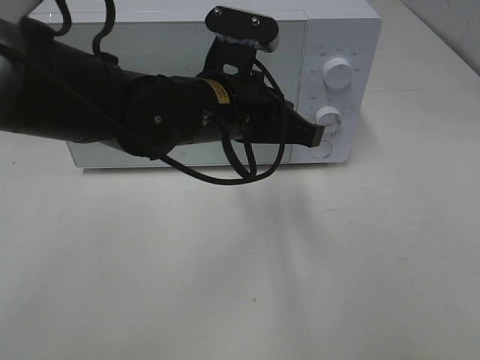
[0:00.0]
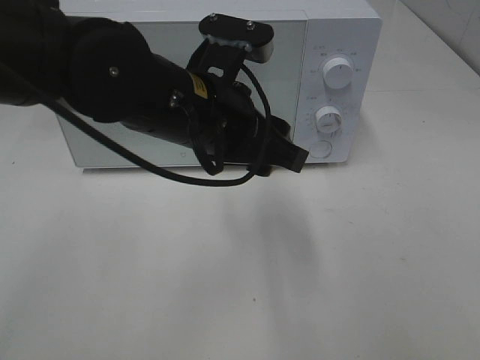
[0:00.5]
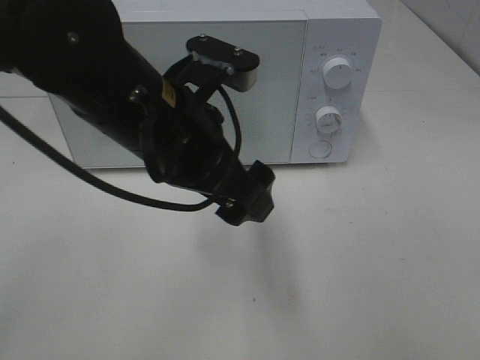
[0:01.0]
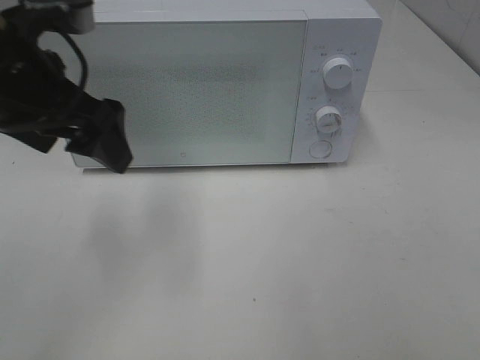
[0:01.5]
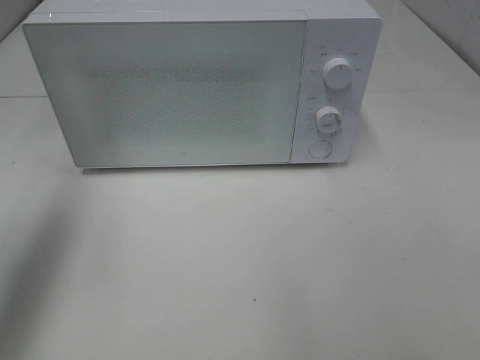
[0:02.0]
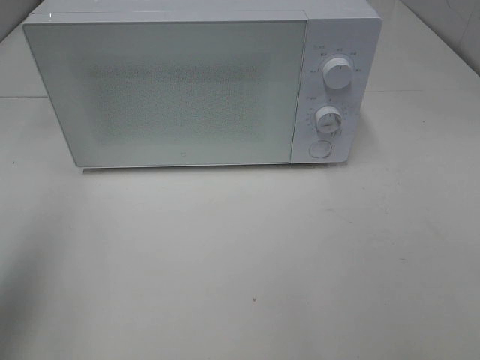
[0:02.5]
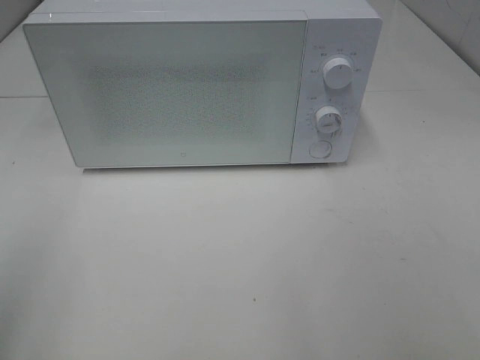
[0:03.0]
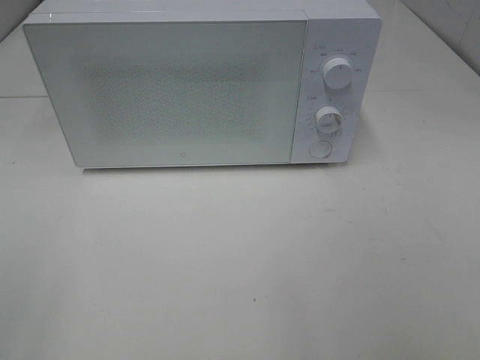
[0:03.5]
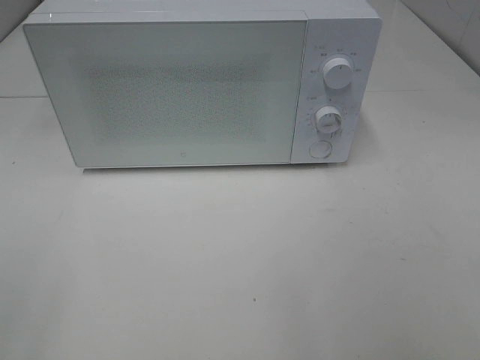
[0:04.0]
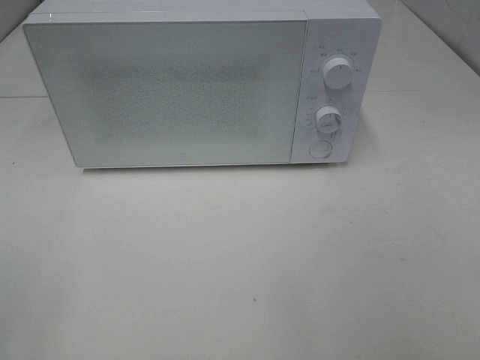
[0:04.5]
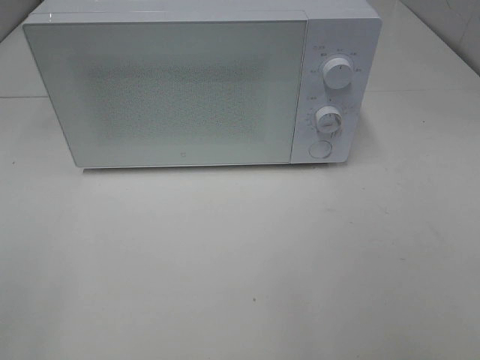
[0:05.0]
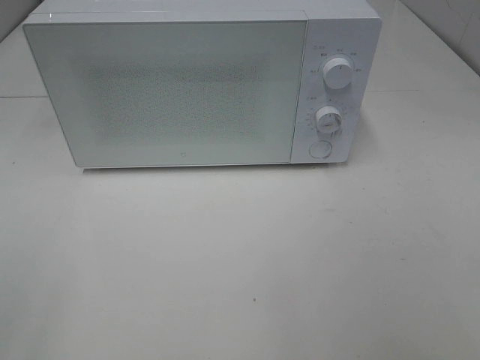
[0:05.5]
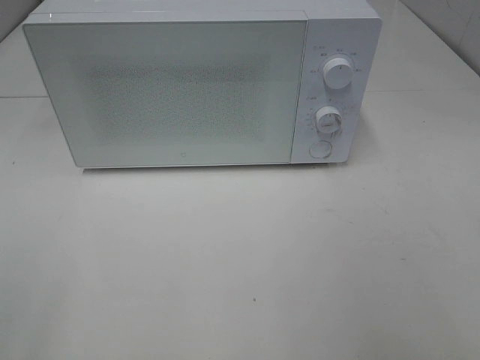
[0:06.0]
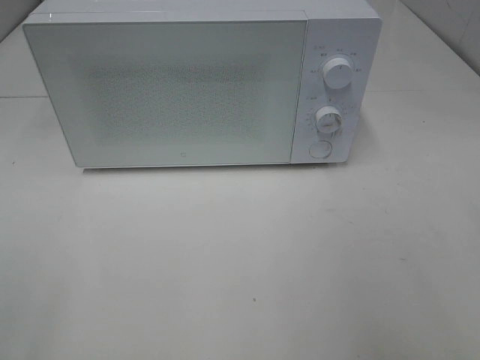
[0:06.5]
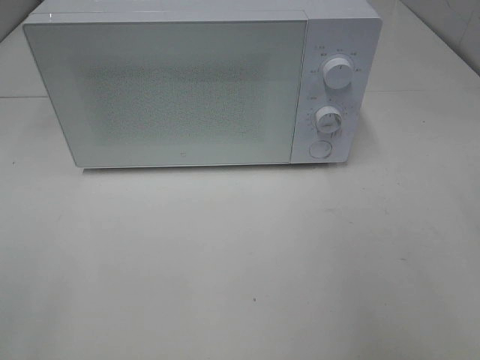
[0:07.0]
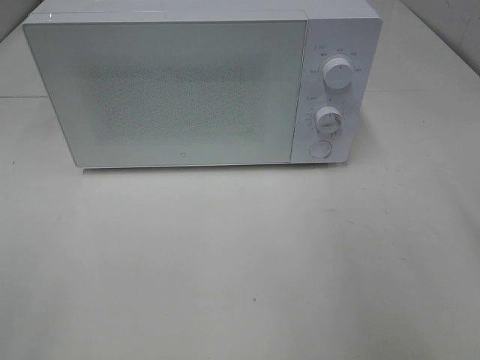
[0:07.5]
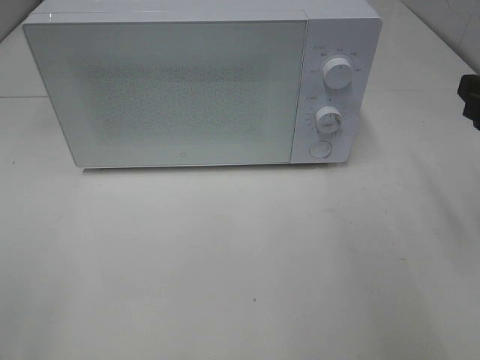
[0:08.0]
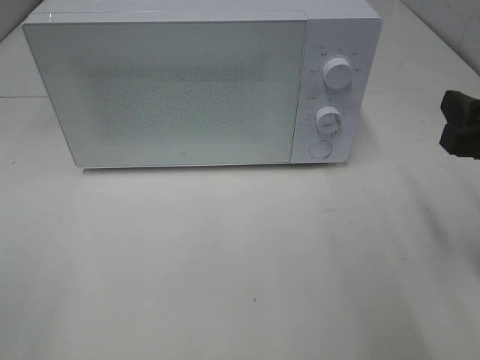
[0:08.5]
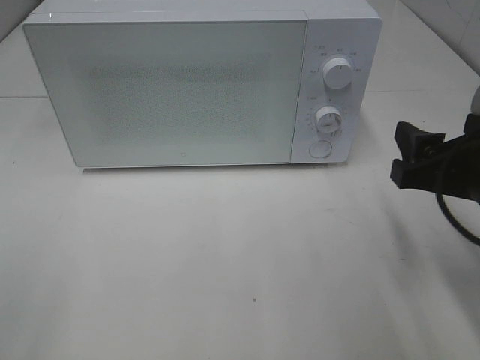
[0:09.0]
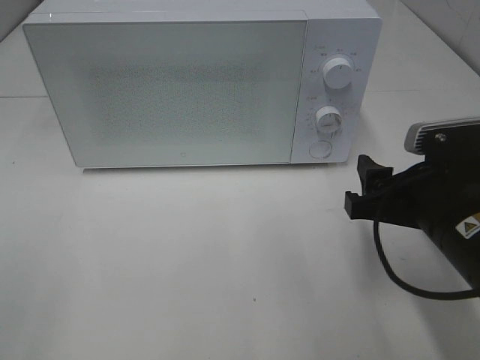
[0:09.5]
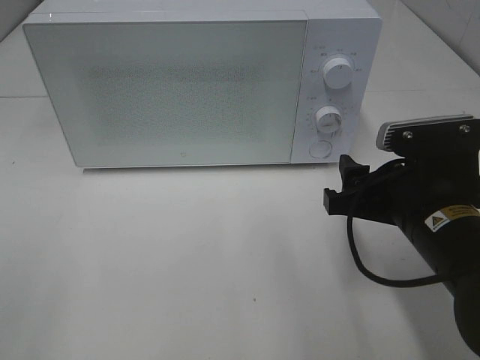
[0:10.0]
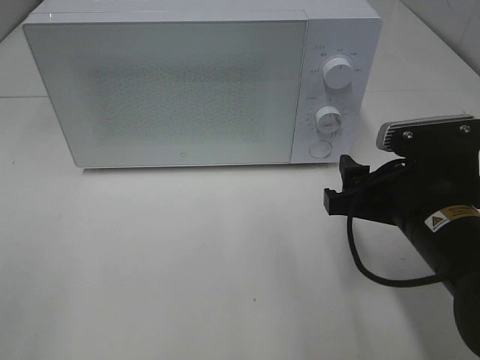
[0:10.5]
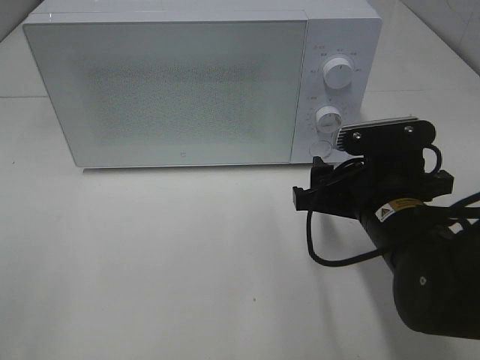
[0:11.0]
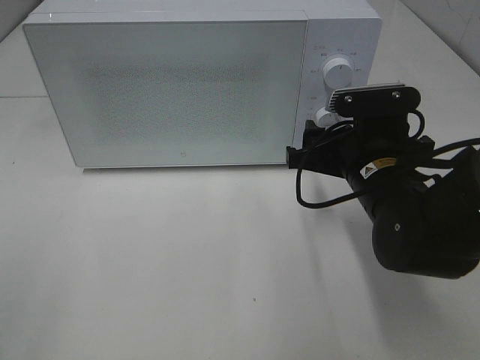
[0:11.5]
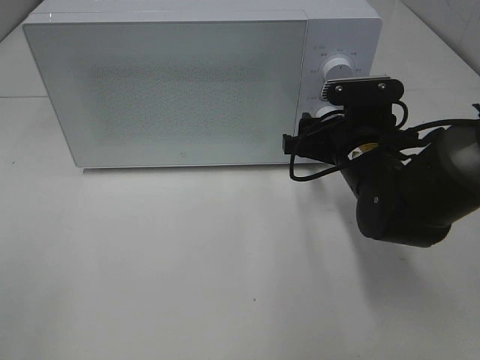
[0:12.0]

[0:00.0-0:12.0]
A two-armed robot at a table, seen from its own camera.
Task of the whole recording: Heat Sandwich.
0:00.0 to 0:02.0: The left gripper travels to the left and upward by approximately 30 cm, and opens up.
0:02.0 to 0:04.0: The left gripper is displaced backward by approximately 25 cm.
0:08.0 to 0:10.0: The right gripper shifts some 15 cm to the left and downward.
0:10.0 to 0:12.0: The right gripper goes approximately 10 cm forward.

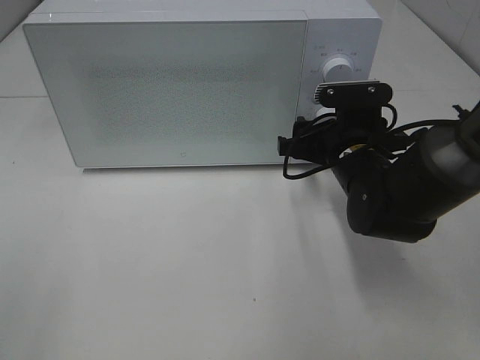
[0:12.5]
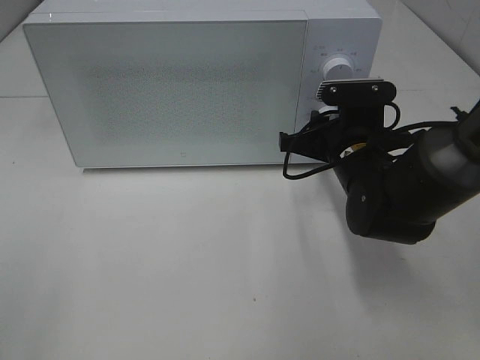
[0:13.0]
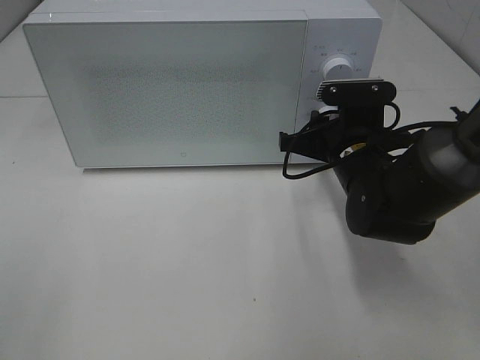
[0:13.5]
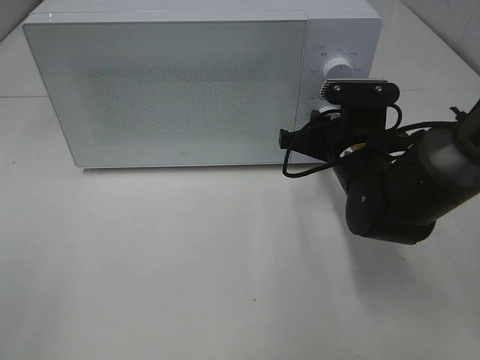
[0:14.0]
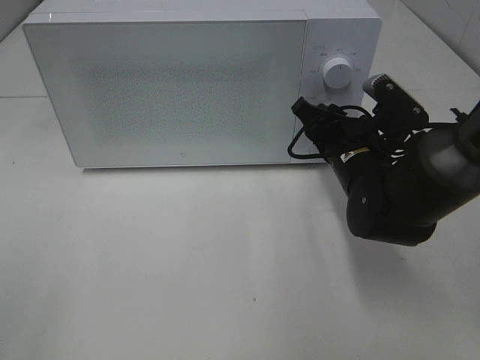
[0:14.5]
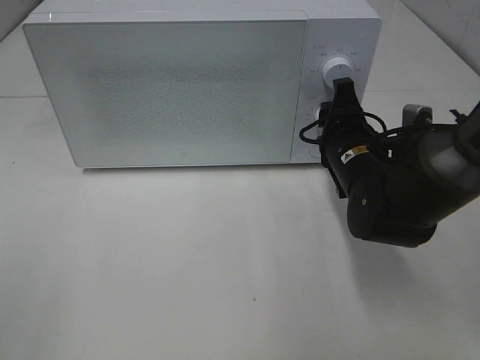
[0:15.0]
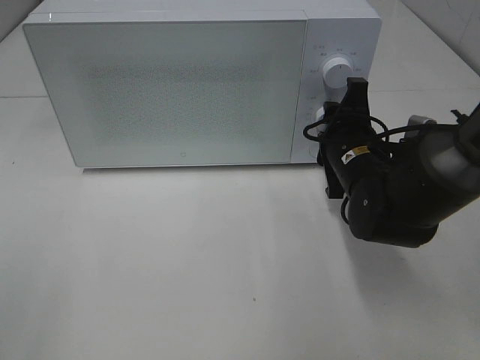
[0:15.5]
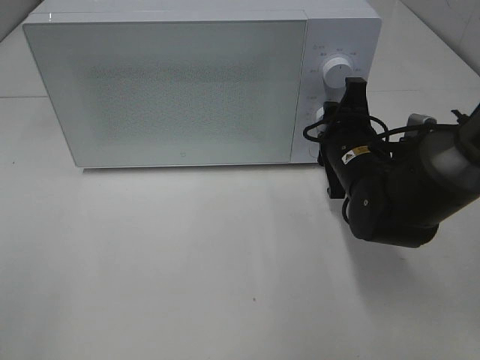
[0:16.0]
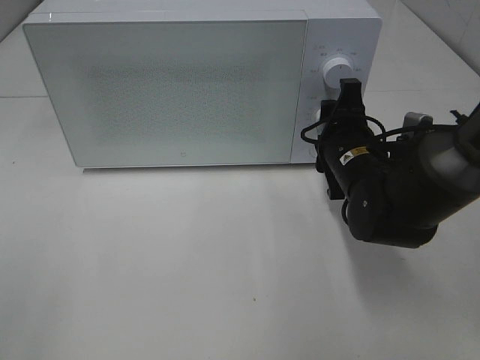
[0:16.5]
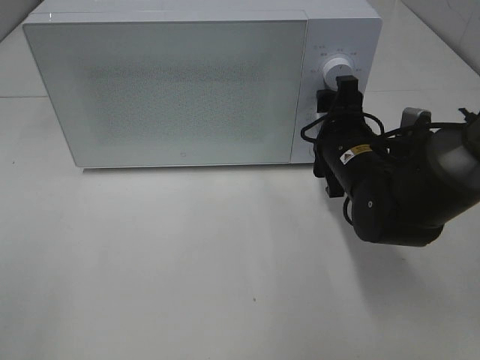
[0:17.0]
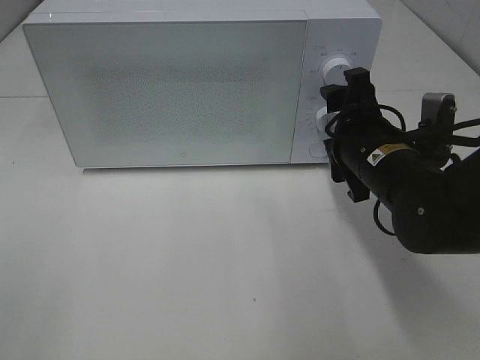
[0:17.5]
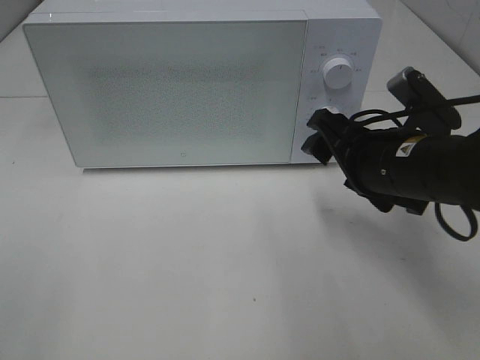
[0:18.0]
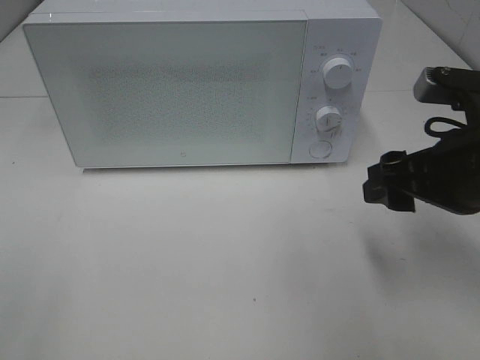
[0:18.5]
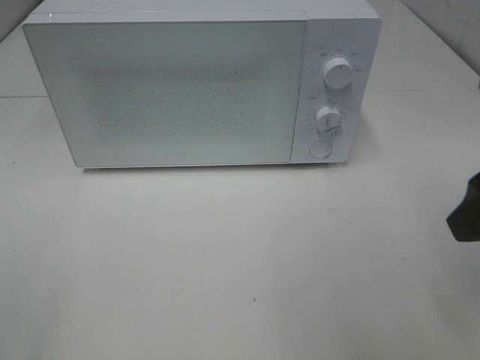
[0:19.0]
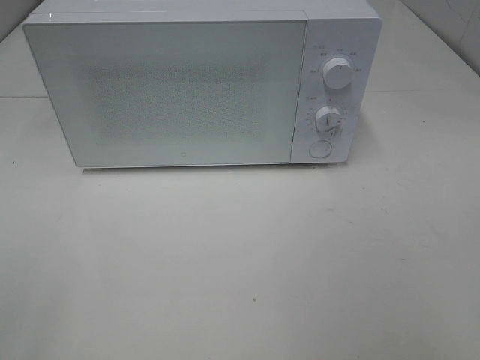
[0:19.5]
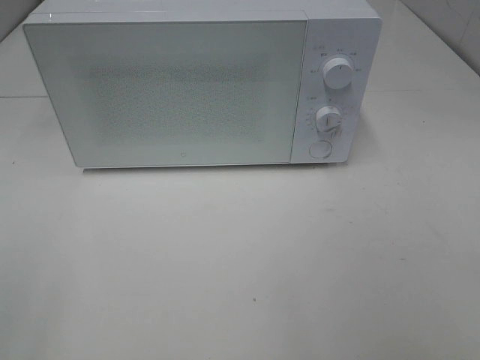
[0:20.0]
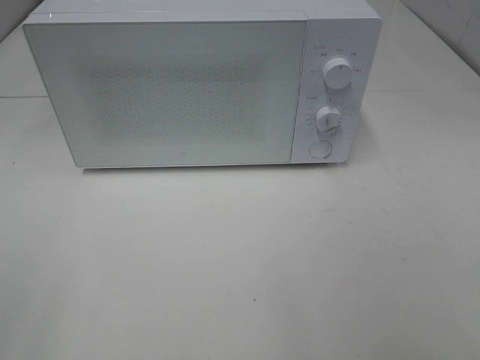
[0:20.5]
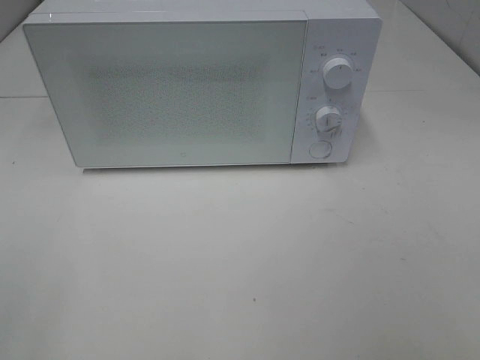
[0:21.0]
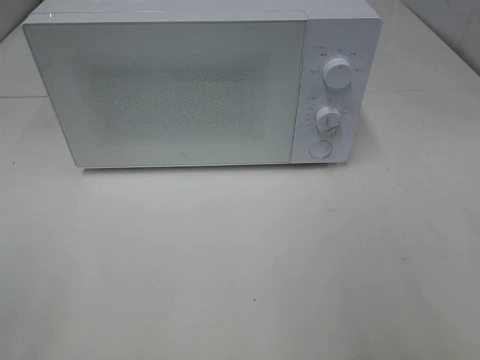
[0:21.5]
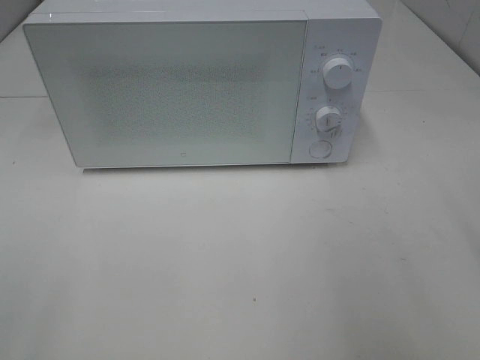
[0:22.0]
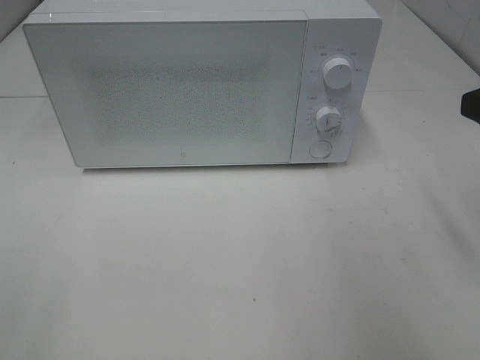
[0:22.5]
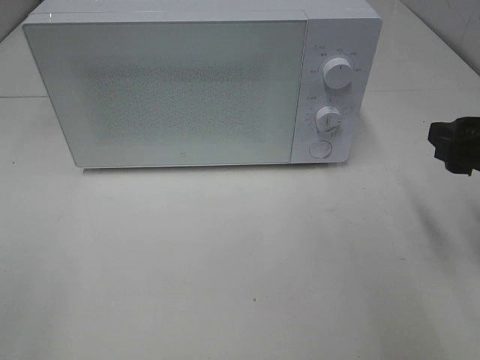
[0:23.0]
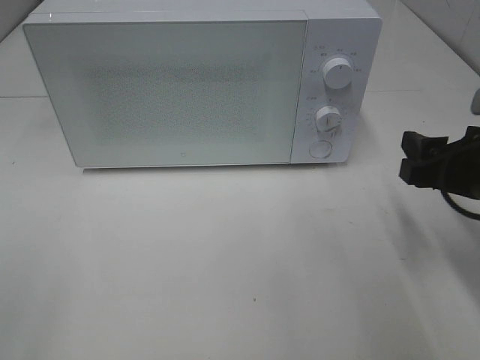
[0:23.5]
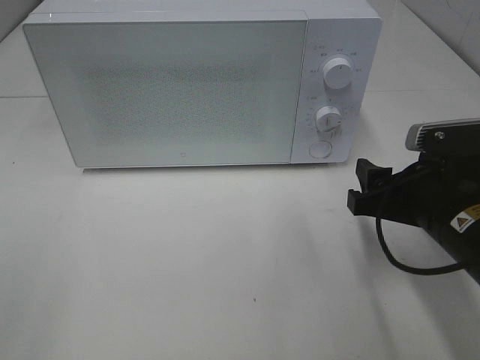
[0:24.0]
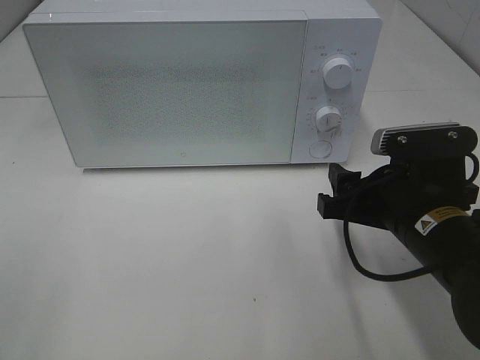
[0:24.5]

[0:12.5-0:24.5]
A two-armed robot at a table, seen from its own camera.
Task of the whole recording: Heat Sandwich.
Step, 0:12.5 to 0:17.0: Right hand: twist timer button.
0:12.5 to 0:14.5: The right gripper closes.
0:16.5 to 0:18.5: The right gripper goes roughly 15 cm backward, upward and to the right.
0:18.5 to 0:20.5: The right gripper moves backward, approximately 20 cm.
0:22.5 to 0:24.5: The right gripper moves downward and to the left, approximately 15 cm.

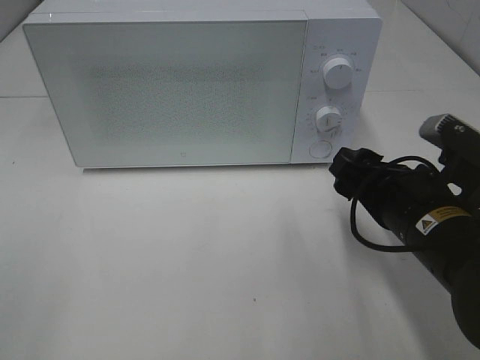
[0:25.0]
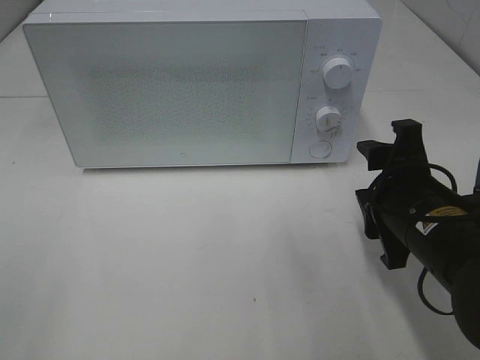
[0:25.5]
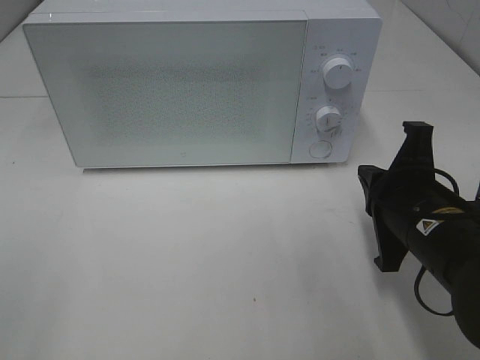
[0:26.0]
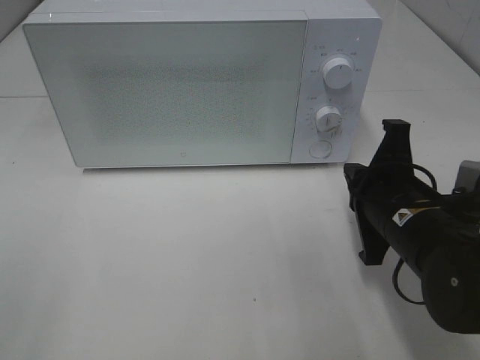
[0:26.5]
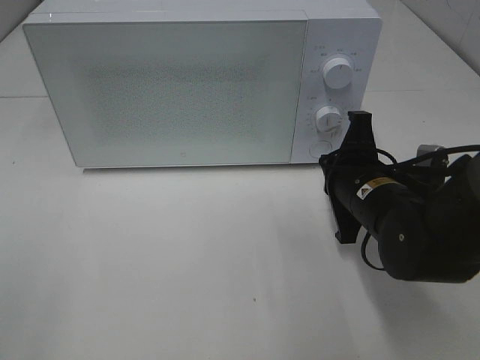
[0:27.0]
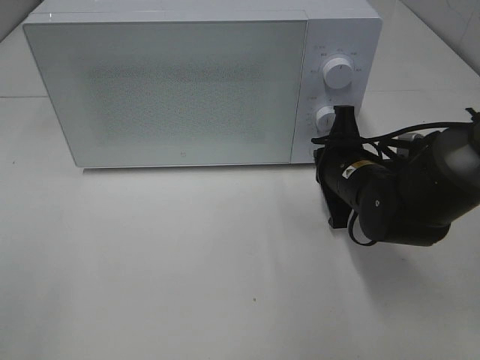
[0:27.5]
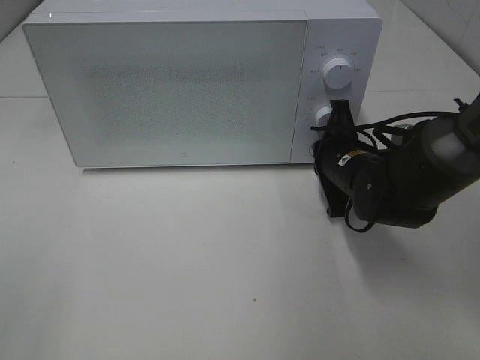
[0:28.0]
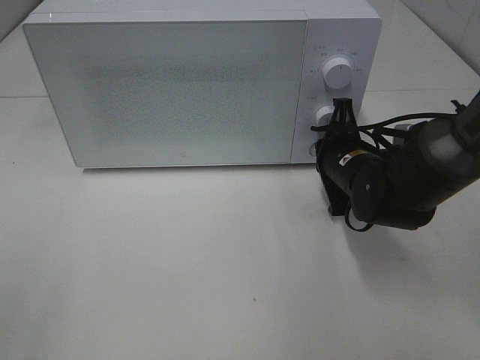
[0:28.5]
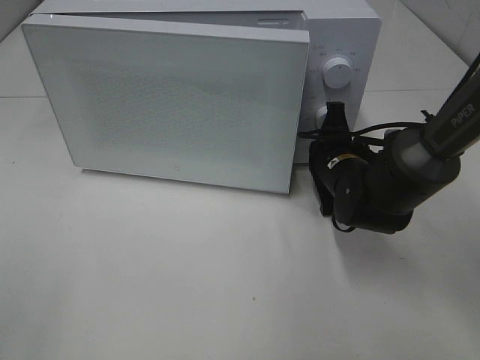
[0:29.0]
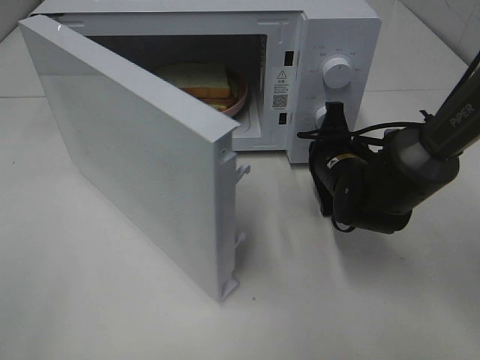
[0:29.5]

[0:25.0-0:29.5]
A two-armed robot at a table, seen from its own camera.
Task of the whole recording: Heat Sandwich.
0:25.0 to 0:27.0: The right gripper moves forward, about 5 cm, and closes.
0:27.0 to 0:29.5: The right gripper moves forward, approximately 10 cm.
